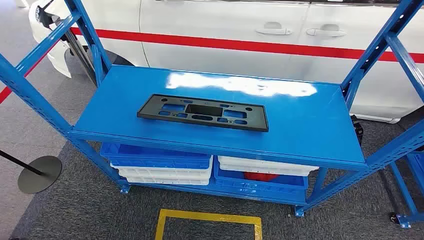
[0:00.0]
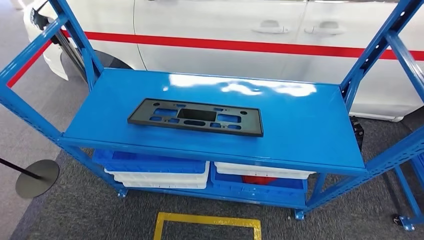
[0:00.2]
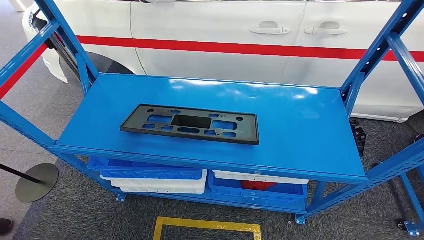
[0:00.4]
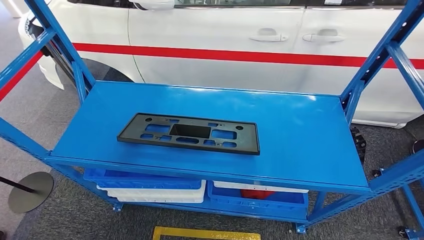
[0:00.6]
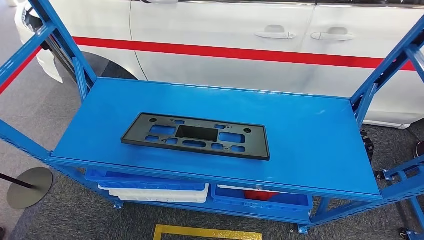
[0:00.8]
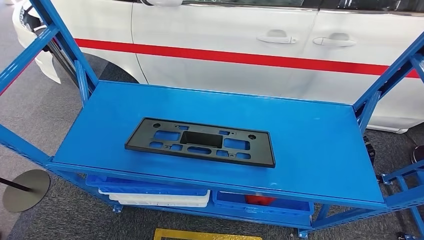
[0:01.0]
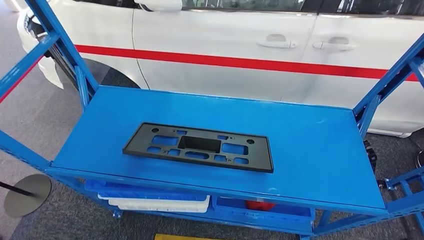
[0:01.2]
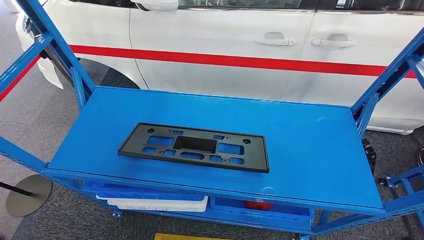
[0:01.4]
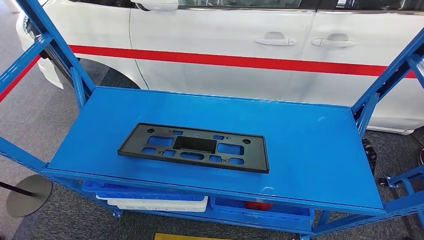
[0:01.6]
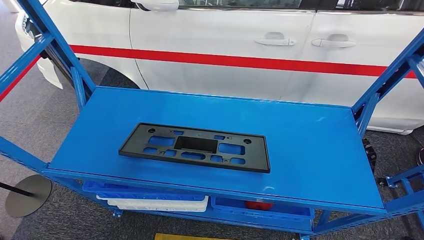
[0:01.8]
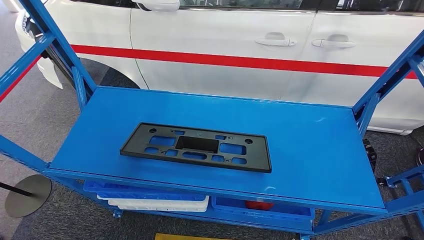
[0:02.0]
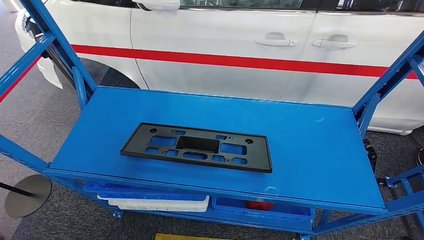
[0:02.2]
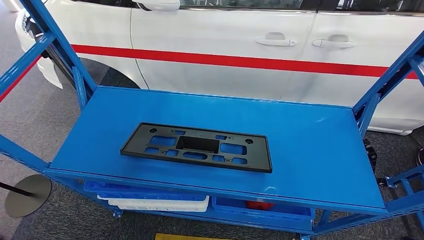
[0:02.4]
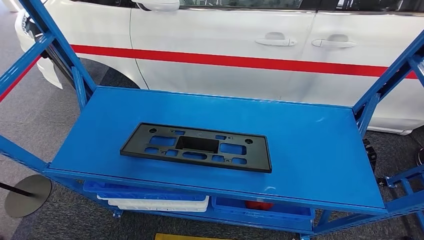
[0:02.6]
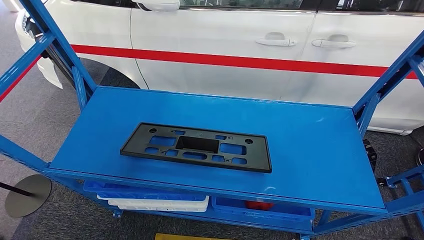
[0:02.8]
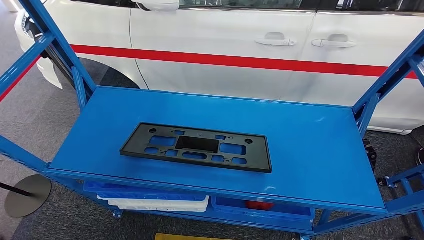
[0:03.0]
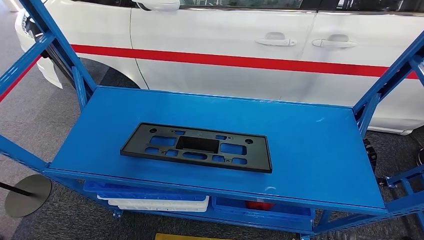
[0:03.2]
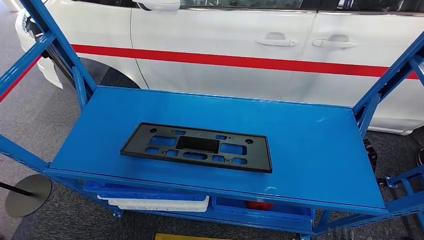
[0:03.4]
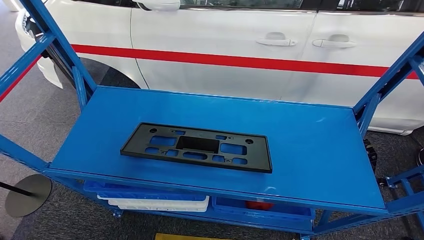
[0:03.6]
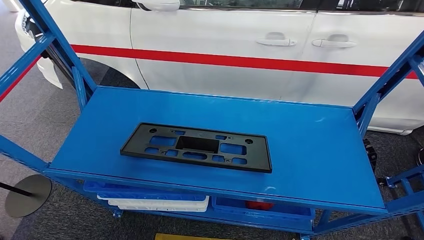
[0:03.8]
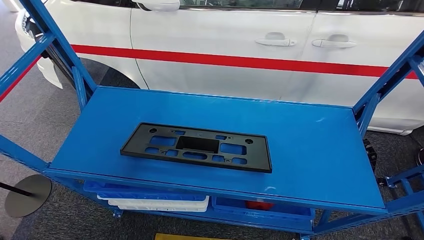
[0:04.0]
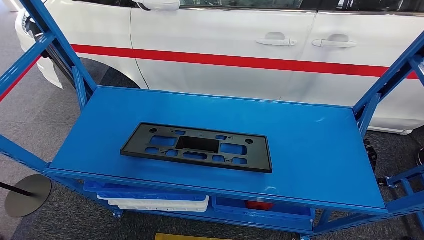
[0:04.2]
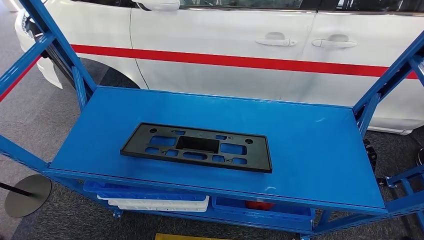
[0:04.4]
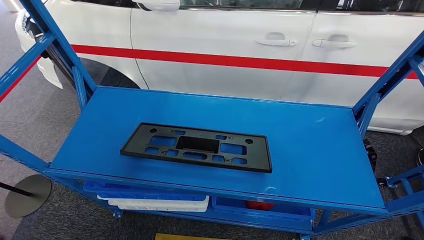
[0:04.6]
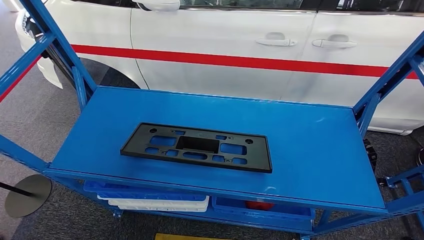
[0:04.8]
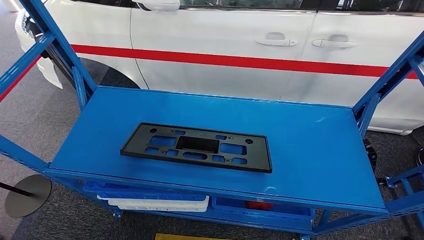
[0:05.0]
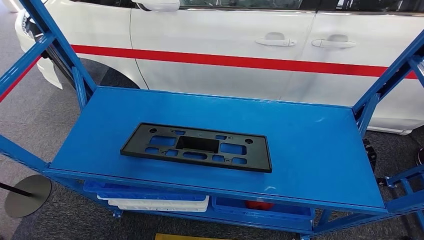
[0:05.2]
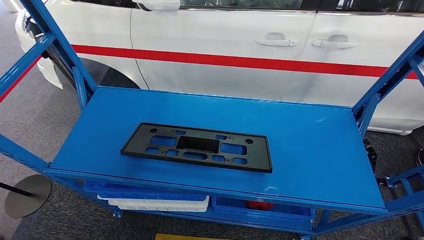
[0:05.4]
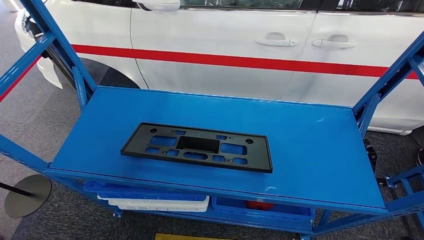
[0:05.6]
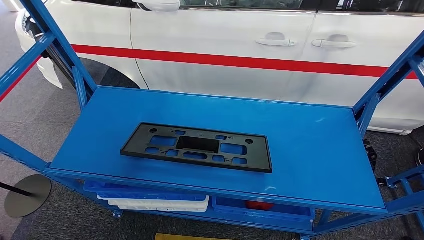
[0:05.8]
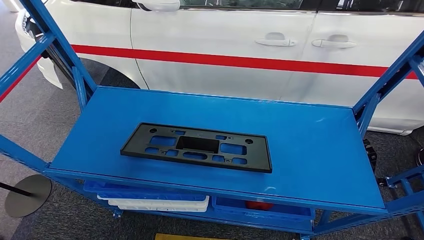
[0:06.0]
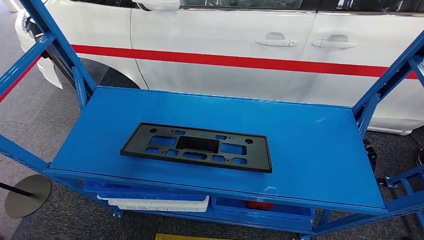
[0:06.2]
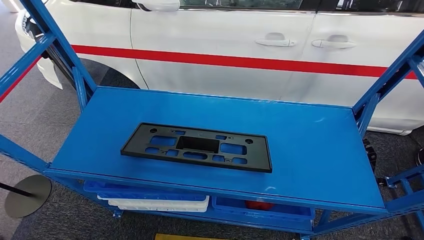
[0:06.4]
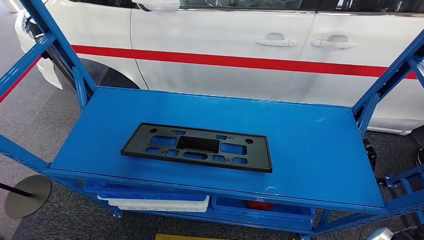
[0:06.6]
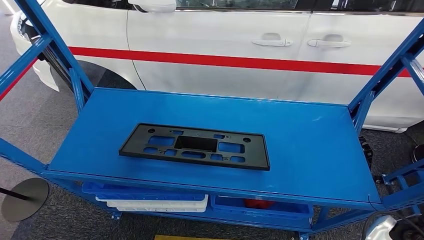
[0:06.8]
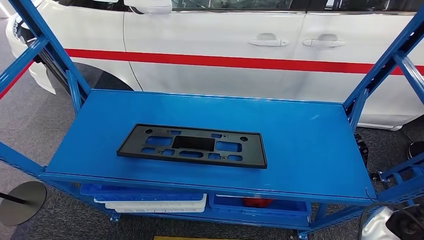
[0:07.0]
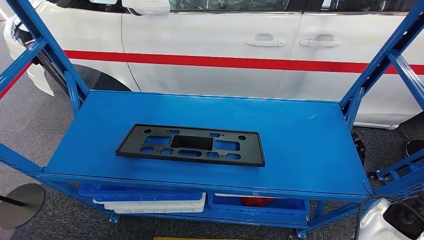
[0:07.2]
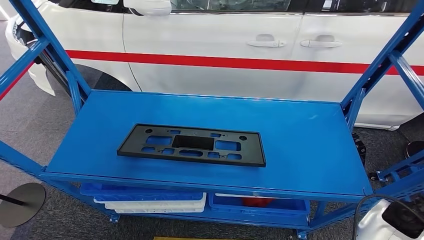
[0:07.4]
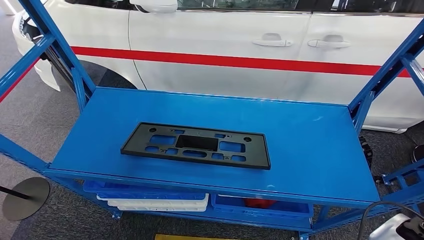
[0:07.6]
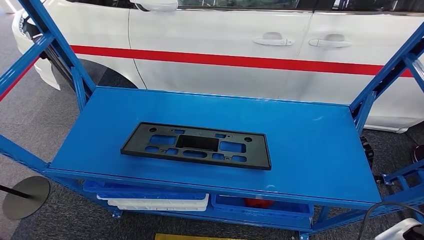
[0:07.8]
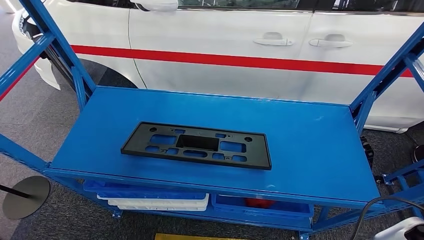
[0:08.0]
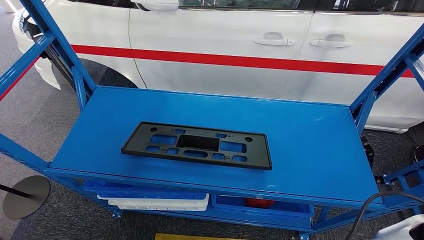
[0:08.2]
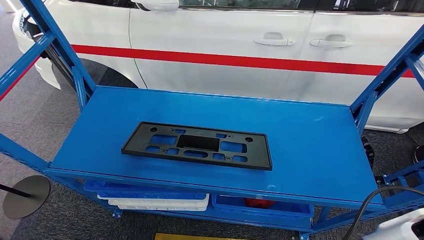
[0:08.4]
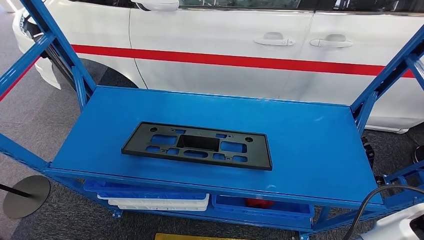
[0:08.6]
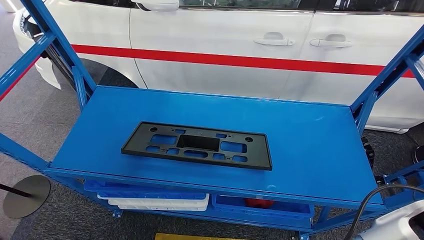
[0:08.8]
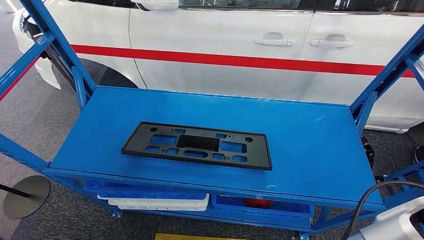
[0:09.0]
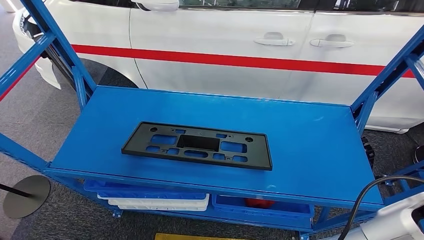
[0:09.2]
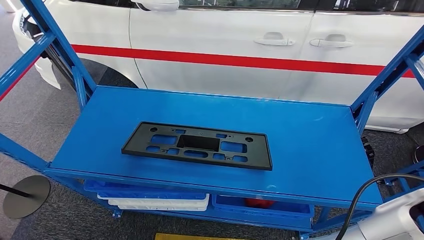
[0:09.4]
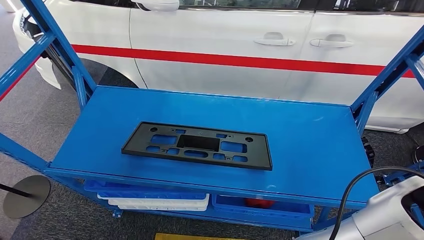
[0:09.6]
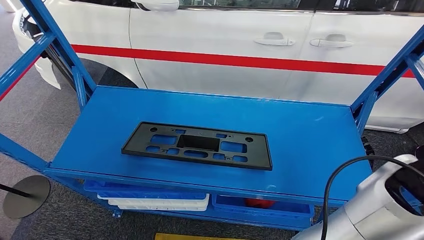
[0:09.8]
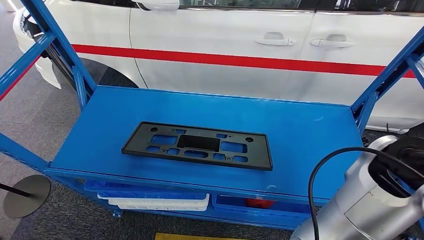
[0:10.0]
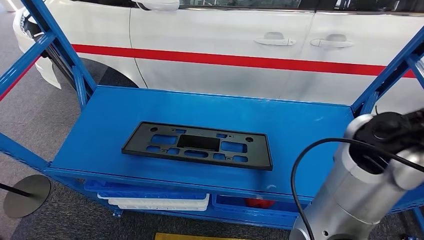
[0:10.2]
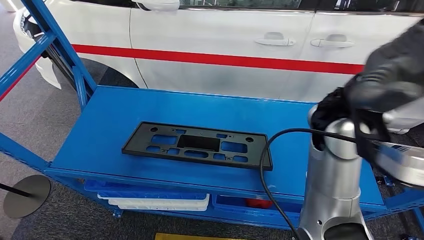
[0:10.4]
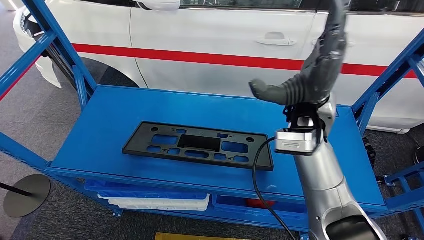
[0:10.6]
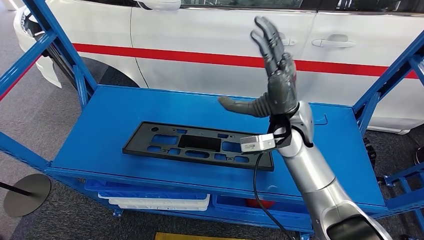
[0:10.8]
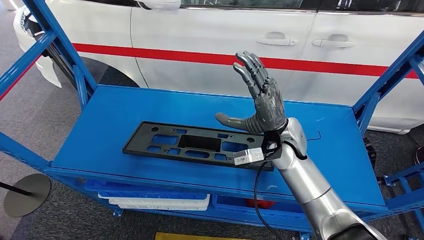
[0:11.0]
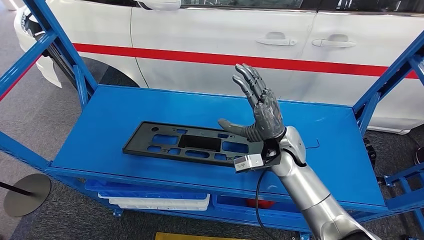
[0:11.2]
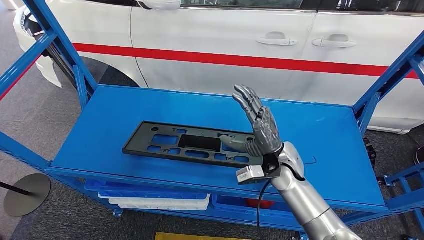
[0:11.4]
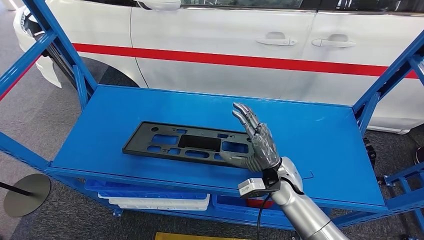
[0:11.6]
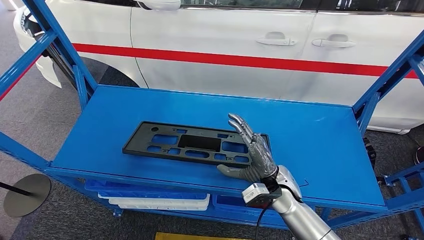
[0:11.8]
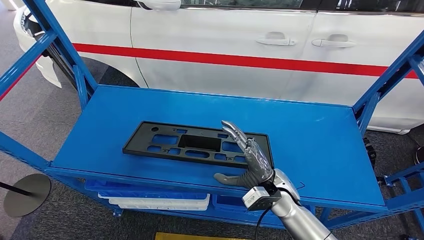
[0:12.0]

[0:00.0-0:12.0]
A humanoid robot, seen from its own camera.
0:01.6 to 0:03.0: The right hand ends up some 5 cm from where it was.
0:06.0 to 0:07.6: The right hand travels upward and forward by about 15 cm.
0:07.6 to 0:09.0: The right hand moves upward and to the left, roughly 15 cm.
0:09.0 to 0:10.4: The right hand moves to the left, forward and upward, about 25 cm.
0:10.4 to 0:12.0: The right hand moves downward, about 30 cm.

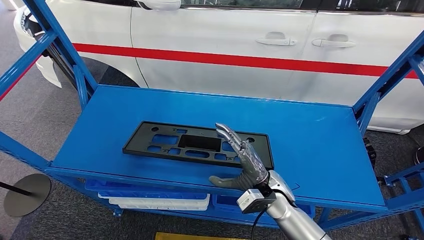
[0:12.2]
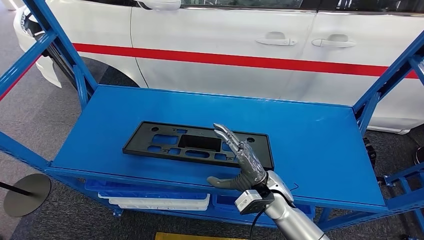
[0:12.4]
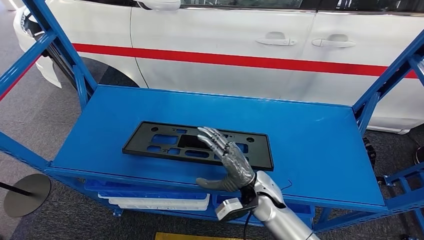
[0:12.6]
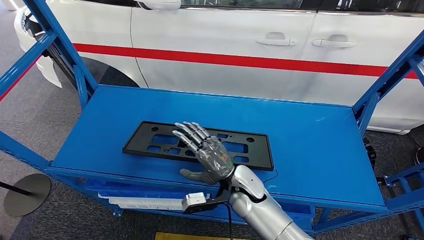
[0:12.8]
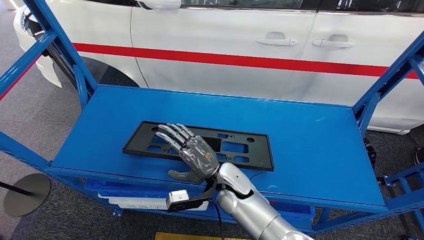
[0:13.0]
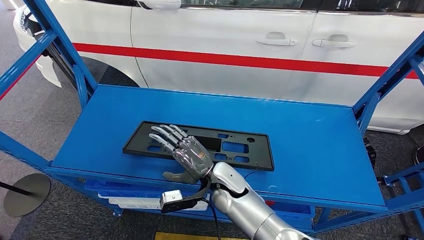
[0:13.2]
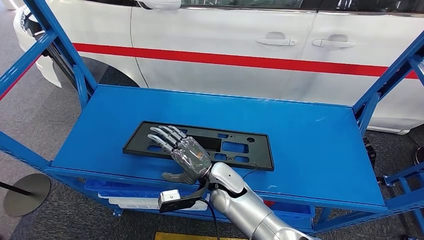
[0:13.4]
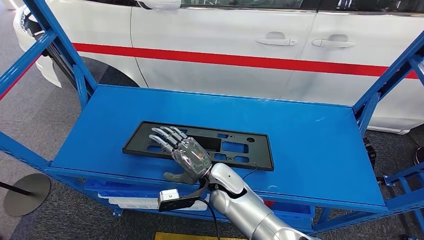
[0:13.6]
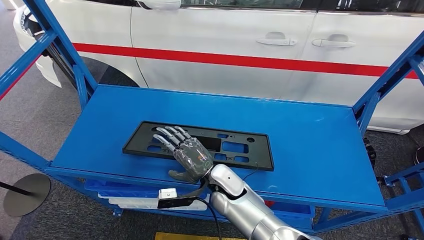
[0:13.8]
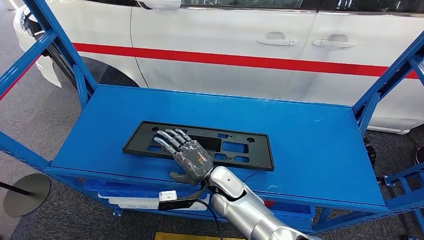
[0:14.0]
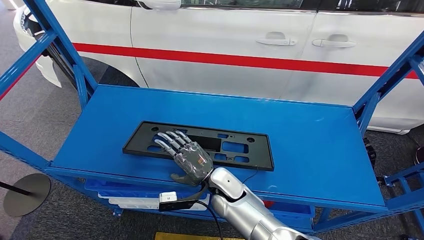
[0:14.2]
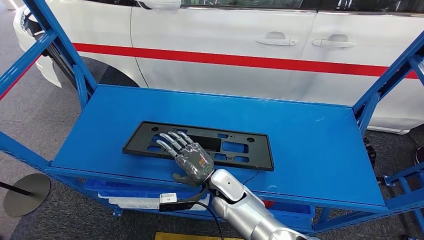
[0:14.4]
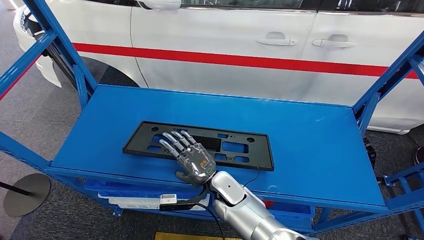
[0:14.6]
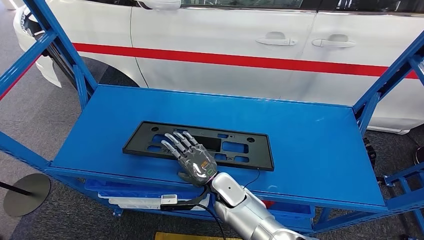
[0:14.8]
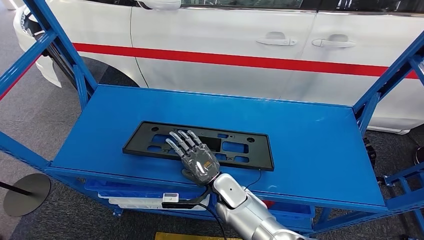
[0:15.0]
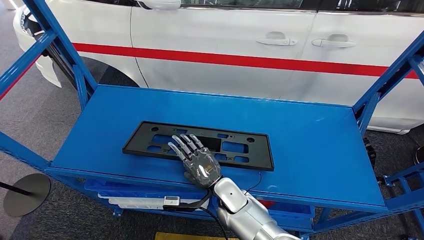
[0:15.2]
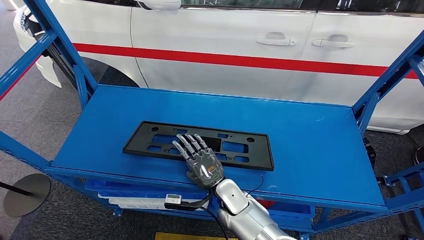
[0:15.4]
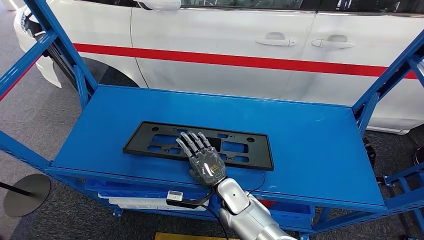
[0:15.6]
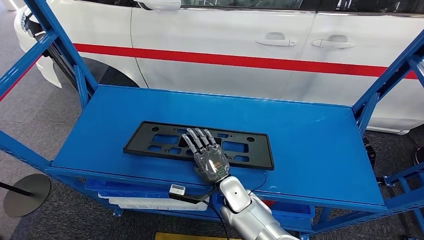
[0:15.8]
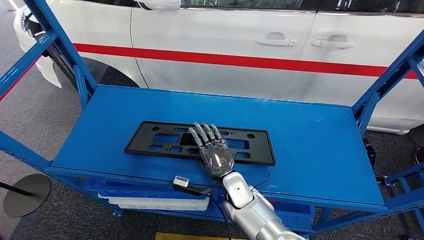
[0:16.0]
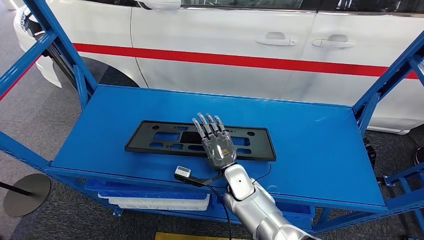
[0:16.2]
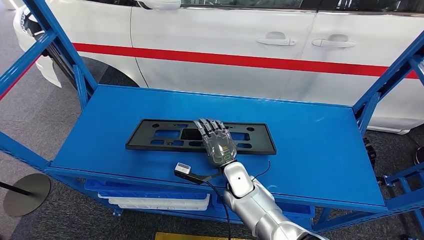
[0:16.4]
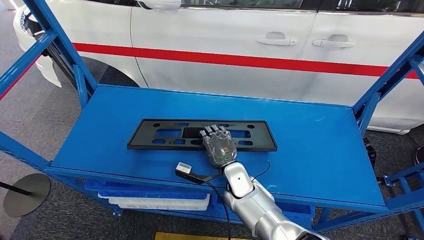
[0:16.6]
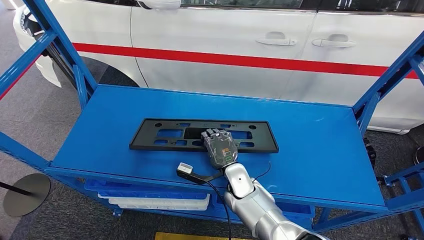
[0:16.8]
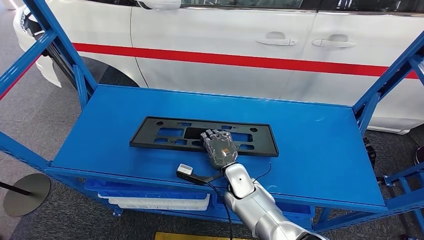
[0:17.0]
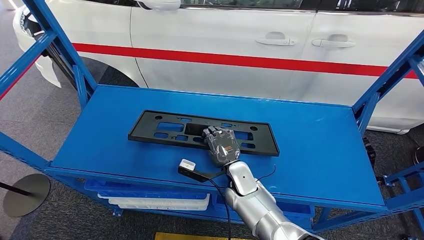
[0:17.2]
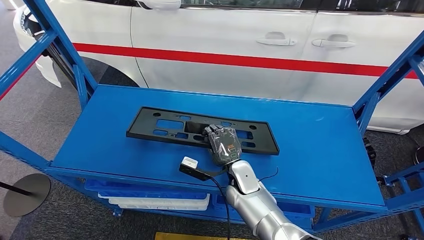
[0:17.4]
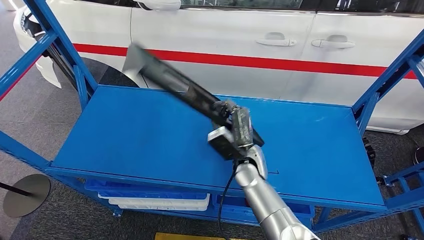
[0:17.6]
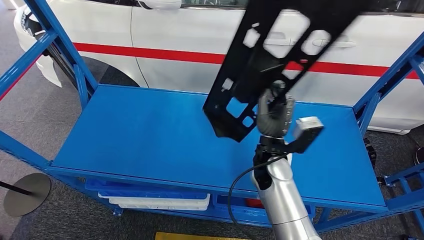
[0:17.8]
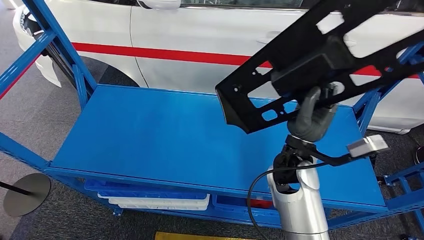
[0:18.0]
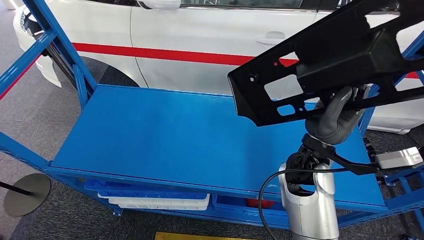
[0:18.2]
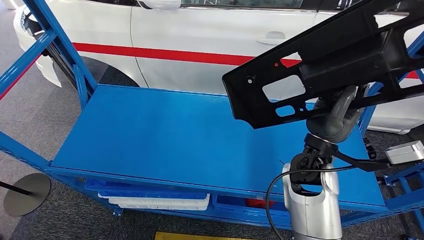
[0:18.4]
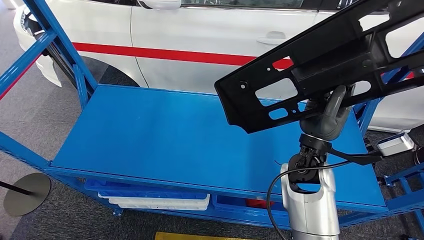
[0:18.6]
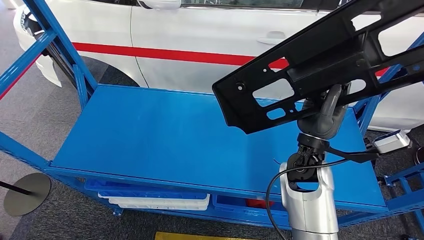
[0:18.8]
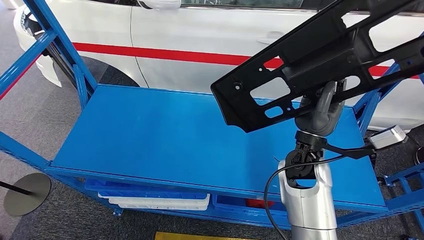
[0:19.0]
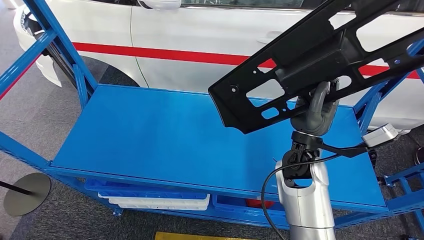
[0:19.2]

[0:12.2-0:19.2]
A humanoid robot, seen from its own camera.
Step, 0:12.2 to 0:18.2: Pick up the large material from the shelf.
0:12.2 to 0:13.6: The right hand is displaced to the left by roughly 15 cm.
